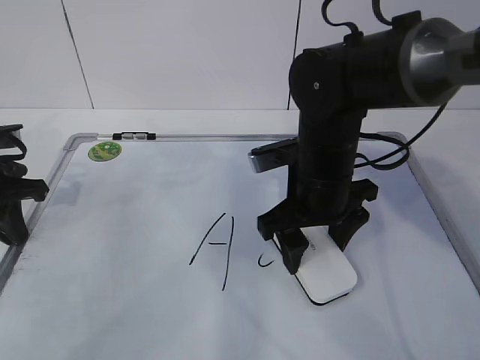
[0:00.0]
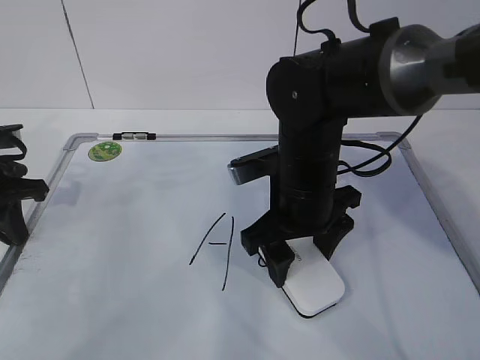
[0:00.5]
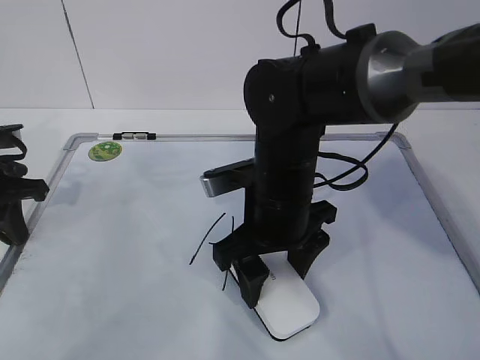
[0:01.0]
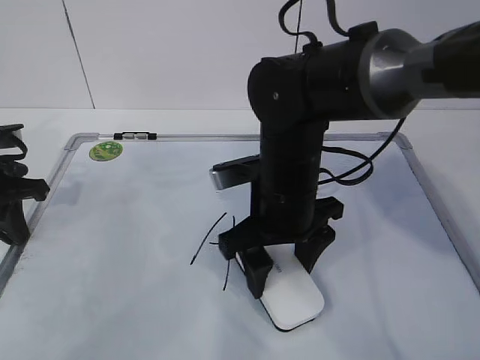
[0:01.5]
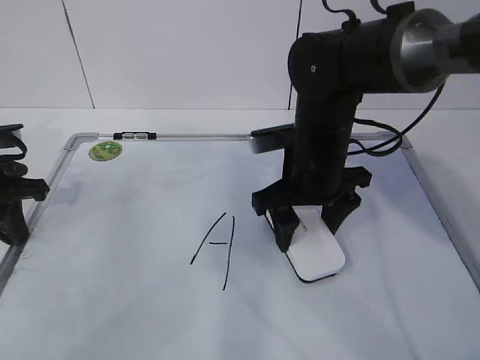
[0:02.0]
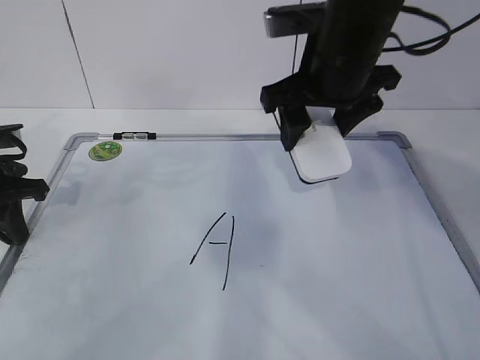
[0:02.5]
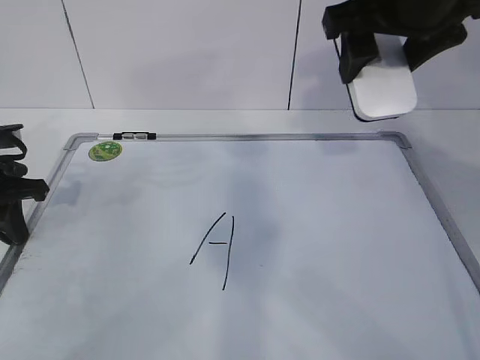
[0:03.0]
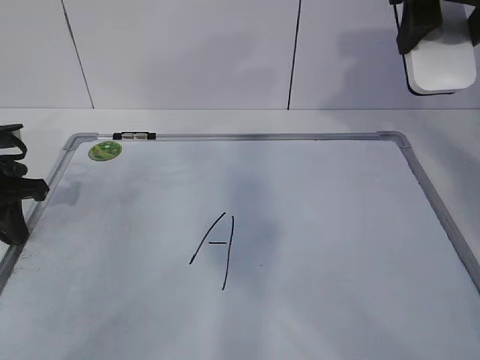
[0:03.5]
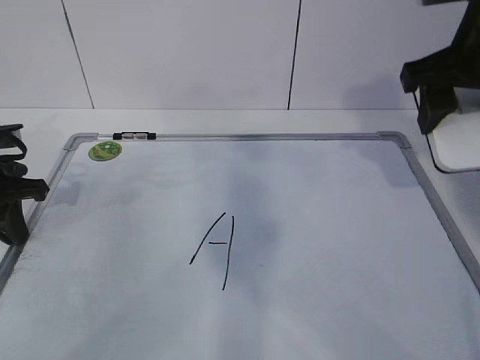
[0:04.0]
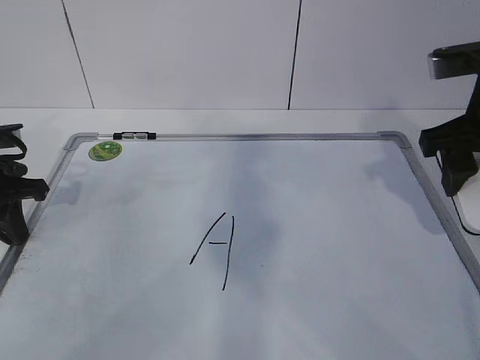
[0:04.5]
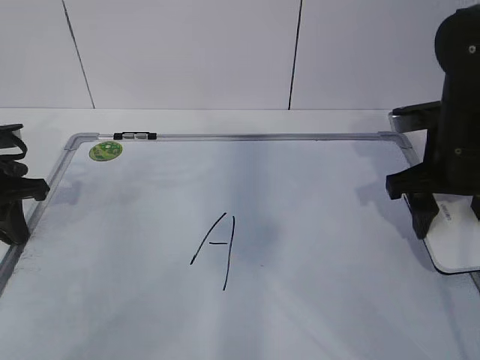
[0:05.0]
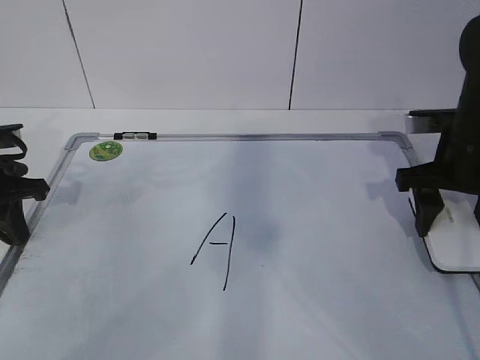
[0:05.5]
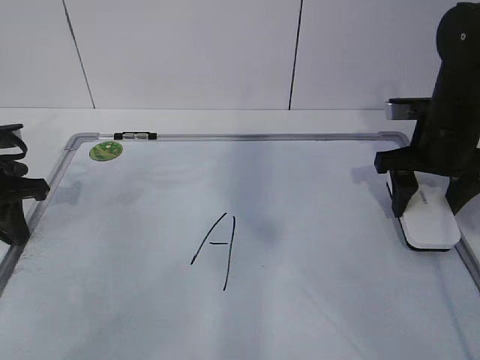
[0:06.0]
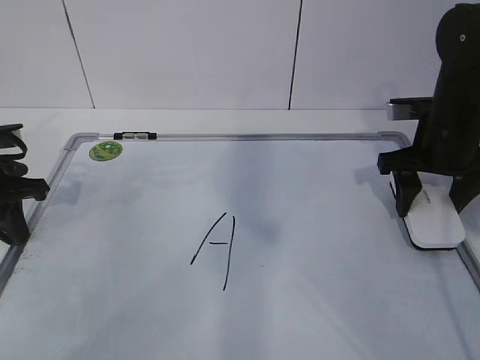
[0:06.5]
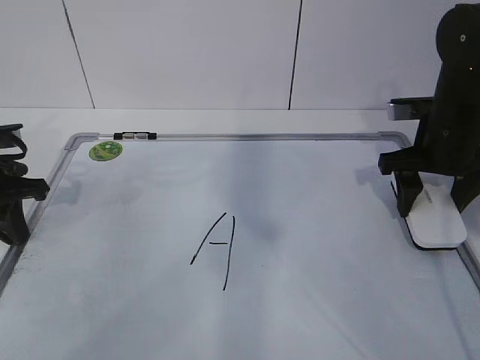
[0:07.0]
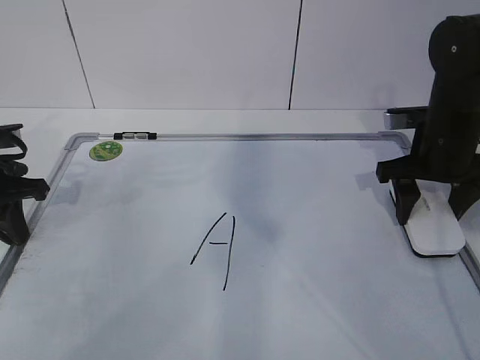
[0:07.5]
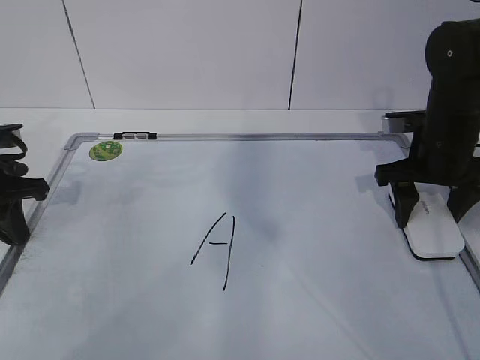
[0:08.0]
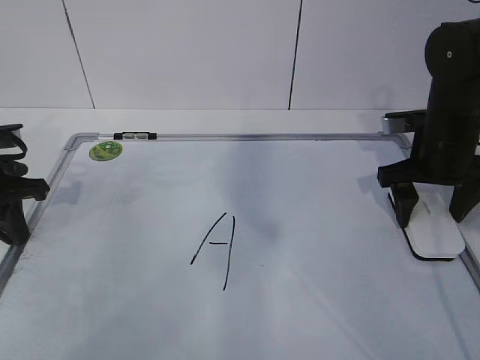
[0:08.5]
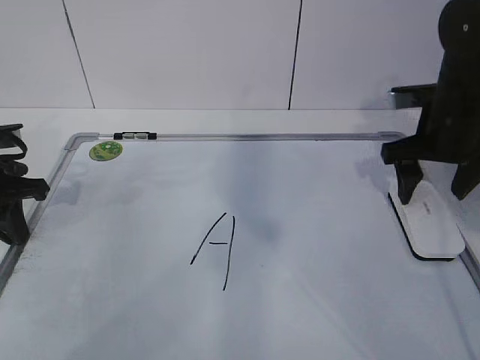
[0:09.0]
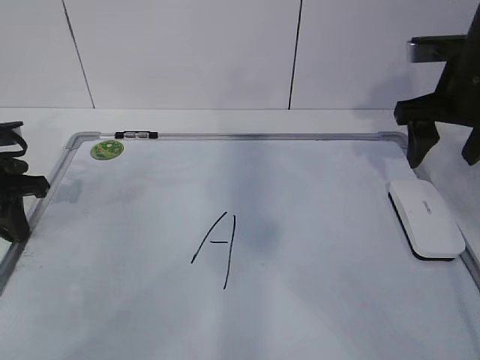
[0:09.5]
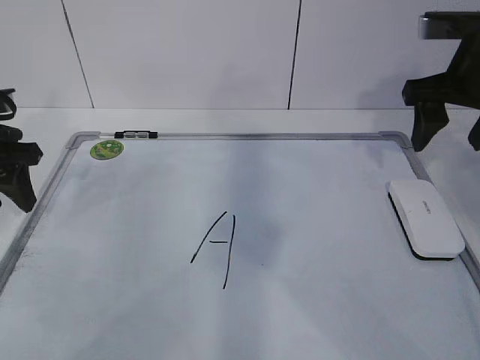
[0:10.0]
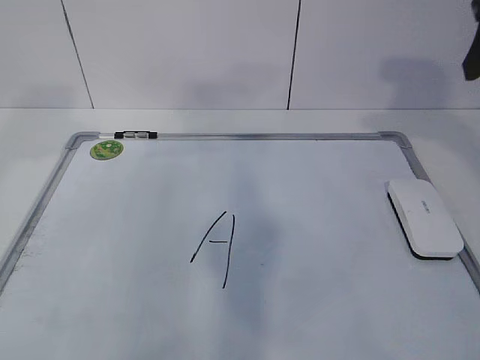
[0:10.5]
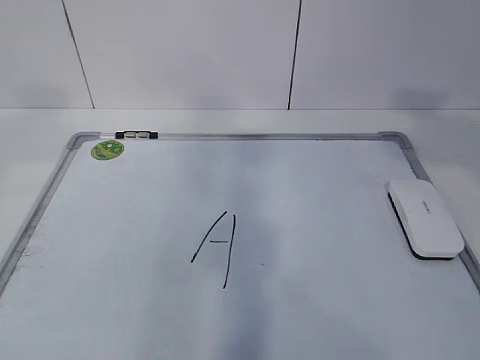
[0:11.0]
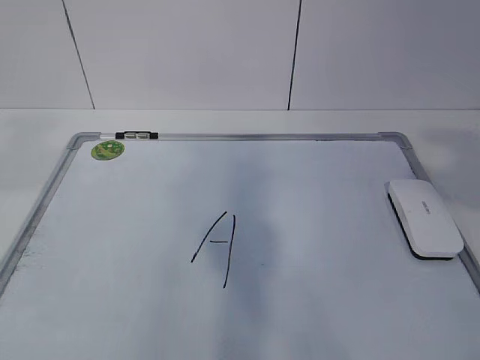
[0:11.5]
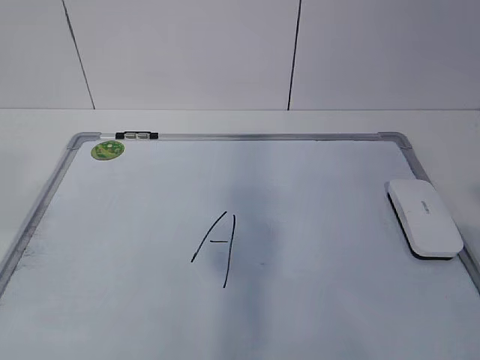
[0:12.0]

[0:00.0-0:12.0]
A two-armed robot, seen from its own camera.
Task of the whole recording: pick up the eraser on the blackboard and erase the letter "a".
Step, 0:00.0 to 0:03.5: Put down the eraser with your right hand.
0:00.0 to 0:02.0: The grippers make only small movements.
0:02.0 to 0:04.0: The right gripper goes roughly 20 cm upward and to the right.
0:04.0 to 0:06.0: The right gripper heads downward and forward, covering some 15 cm.
0:06.0 to 0:08.0: There are only small adjustments of the grippers.
0:08.0 to 0:10.0: The right gripper travels upward by roughly 10 cm, and opens its fingers. Meanwhile the left gripper opens its fingers.
0:10.0 to 0:12.0: The right gripper is displaced backward by about 35 cm. Meanwhile the left gripper travels backward and upward by about 40 cm.

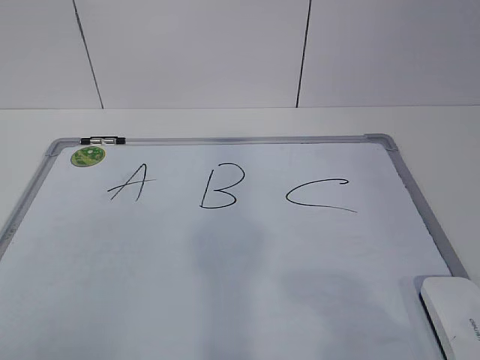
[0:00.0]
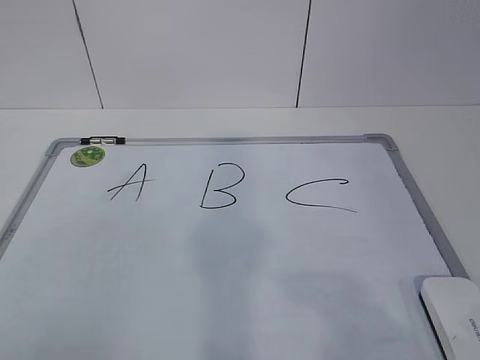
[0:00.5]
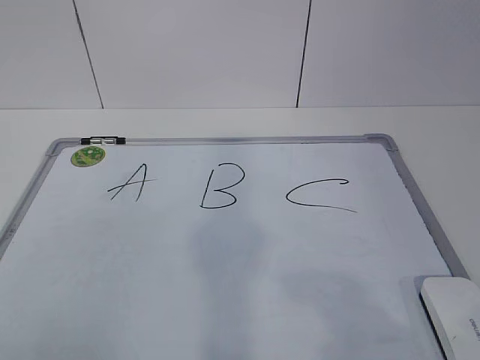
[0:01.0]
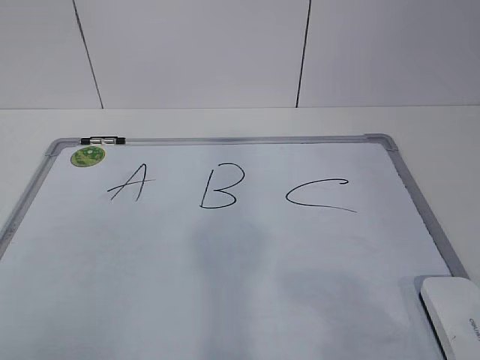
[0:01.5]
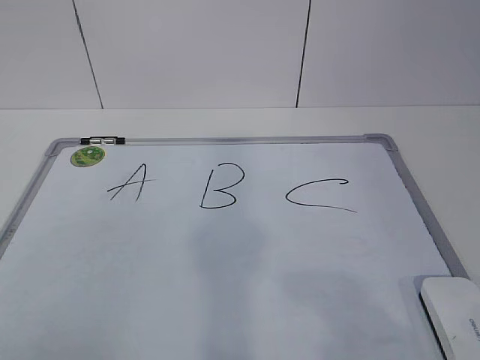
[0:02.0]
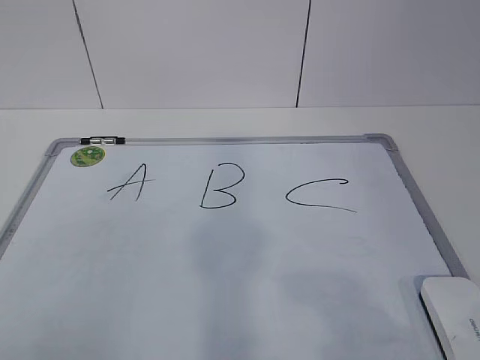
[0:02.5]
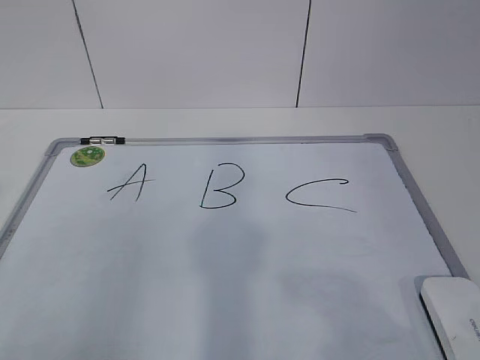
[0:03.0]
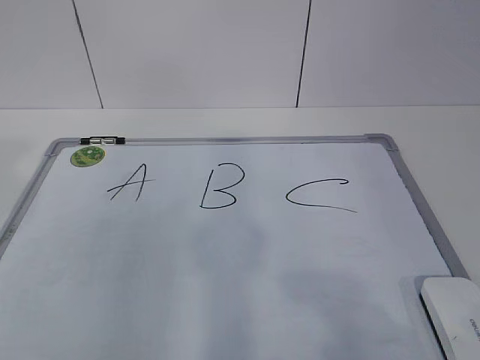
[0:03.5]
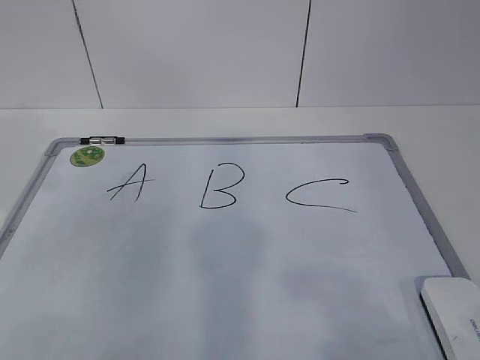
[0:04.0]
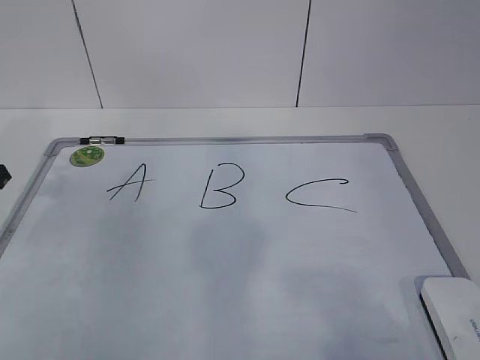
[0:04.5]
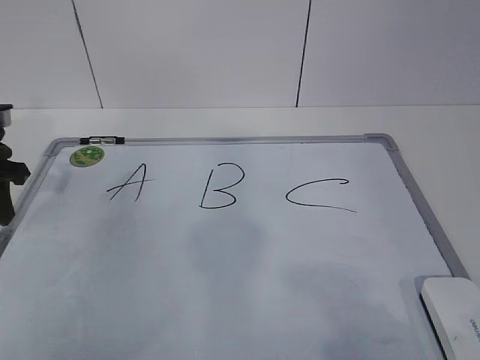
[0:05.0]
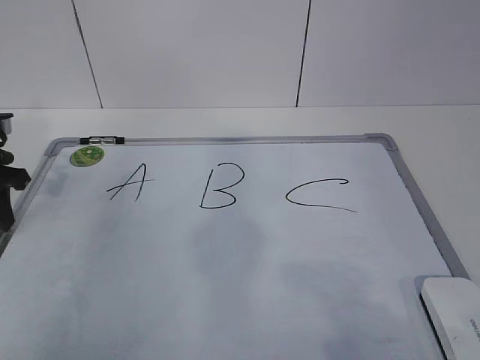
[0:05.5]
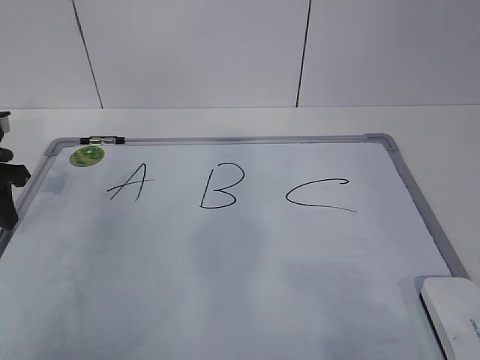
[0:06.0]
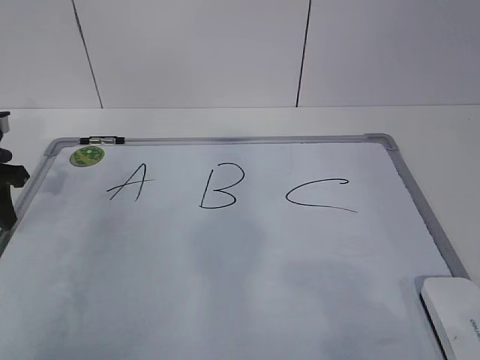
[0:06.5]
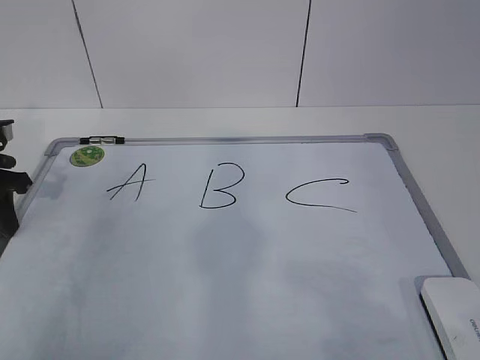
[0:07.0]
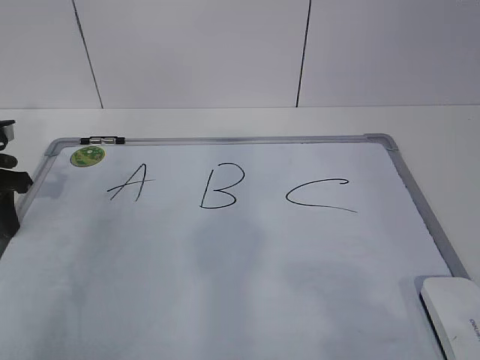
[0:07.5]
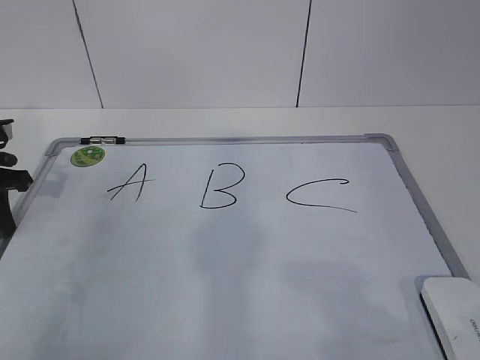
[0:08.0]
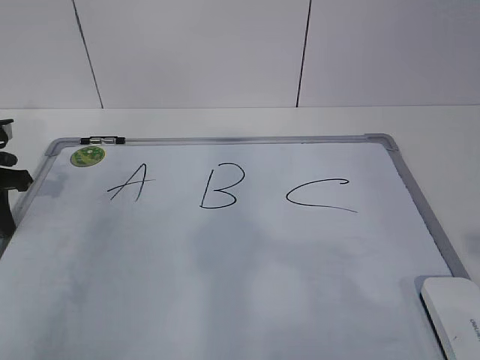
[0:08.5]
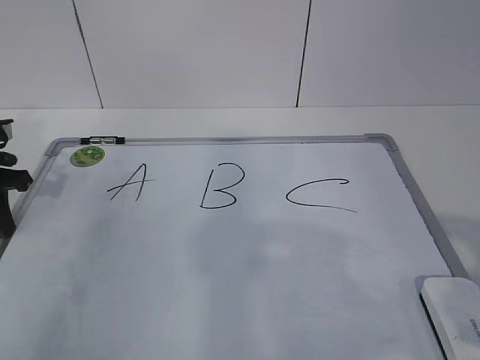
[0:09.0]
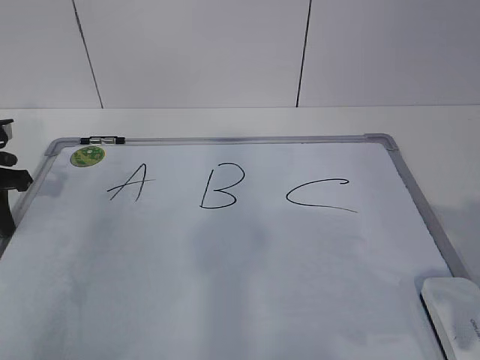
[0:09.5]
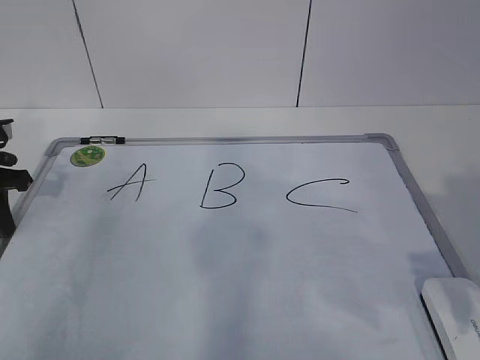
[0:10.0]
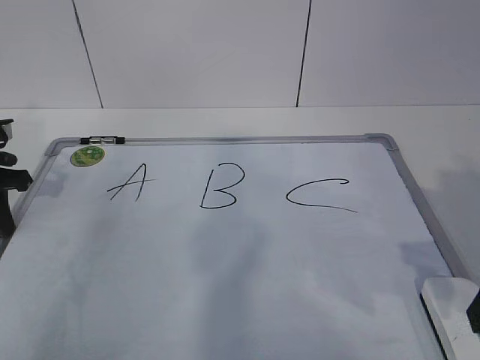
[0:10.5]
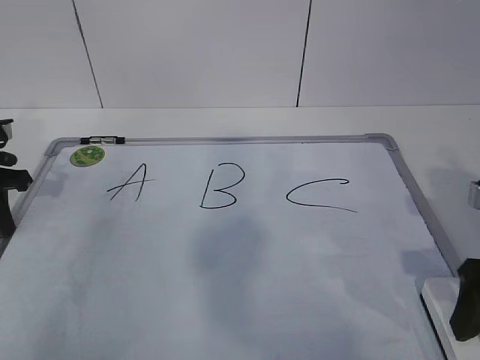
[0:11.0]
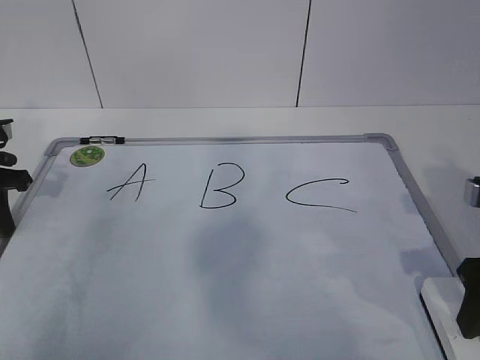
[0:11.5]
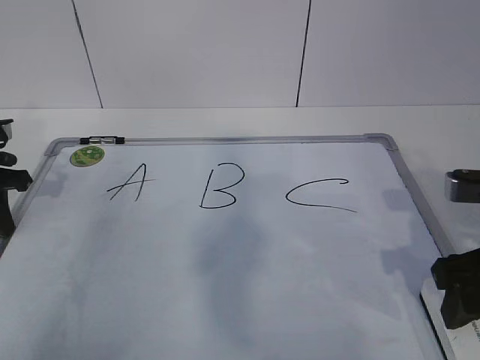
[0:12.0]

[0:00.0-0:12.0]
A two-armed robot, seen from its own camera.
Task of the whole recording: pick up the eraser on the blackboard and erase the letter "B".
Step, 0:00.0 to 0:06.0: Hold the drawing board steady with your left hand.
0:04.0 to 0:06.0: The left gripper goes some 15 cm downward and forward.
0:06.0 to 0:08.0: The left gripper closes up.
0:08.0 to 0:10.0: The right gripper is displaced forward by some 15 cm.
0:10.0 to 0:12.0: The right gripper moves forward, some 5 cm, and closes its fingers.

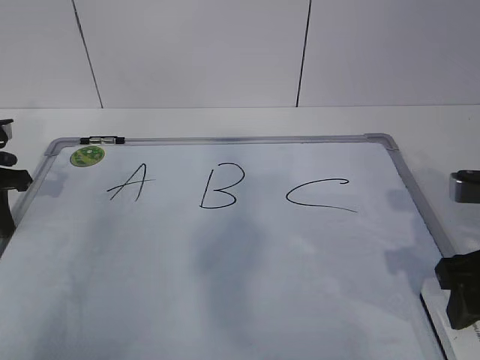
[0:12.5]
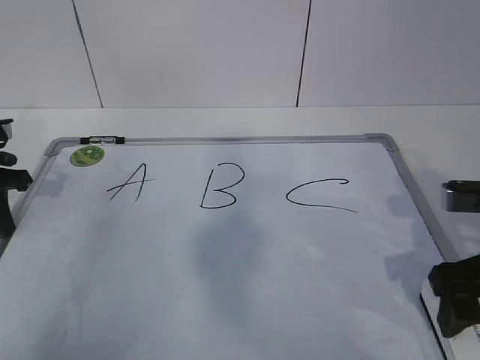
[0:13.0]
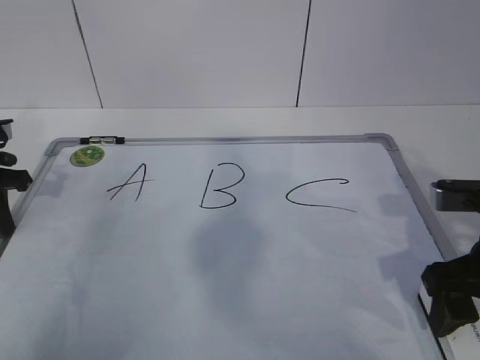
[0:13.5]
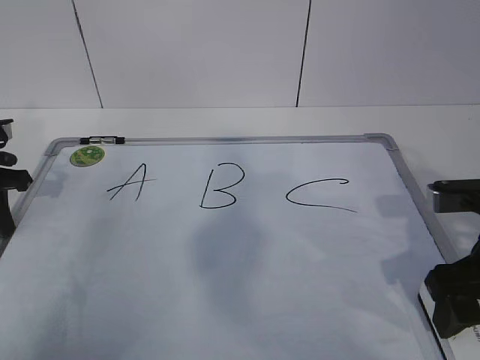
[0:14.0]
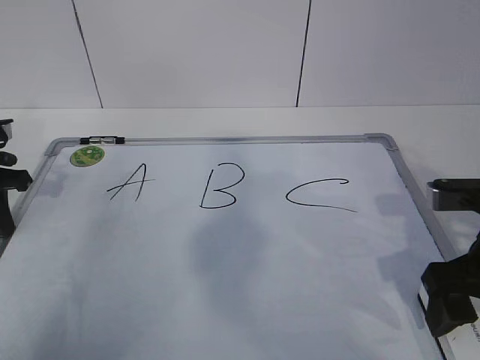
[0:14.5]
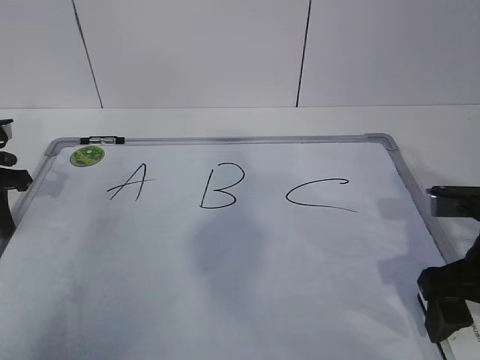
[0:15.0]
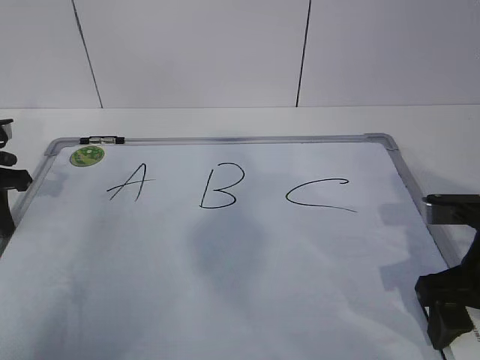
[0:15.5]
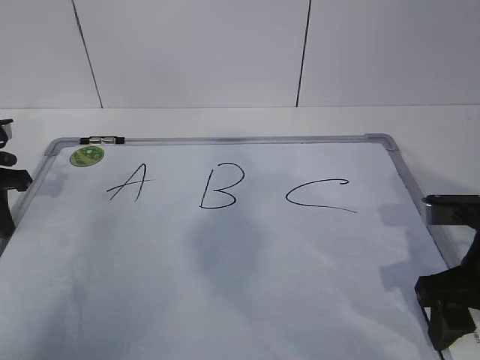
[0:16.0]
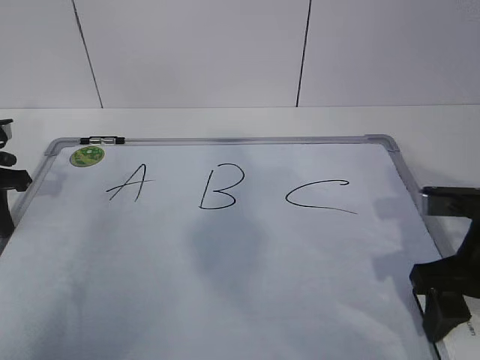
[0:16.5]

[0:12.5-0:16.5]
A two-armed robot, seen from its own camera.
Task of the whole recording: pick up the eraser on the blackboard and erase the letter "B".
0:12.5 to 0:14.5: The right gripper opens its fingers.
0:14.5 to 0:16.5: The right gripper closes its fingers.
